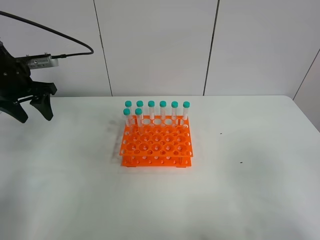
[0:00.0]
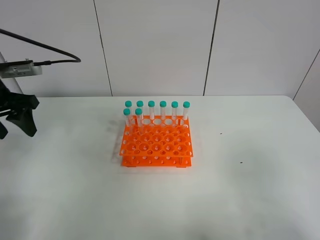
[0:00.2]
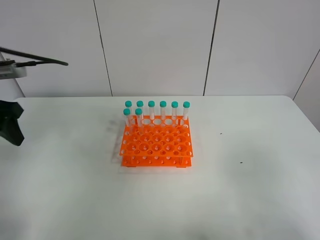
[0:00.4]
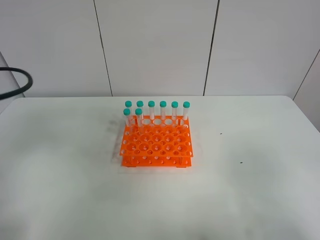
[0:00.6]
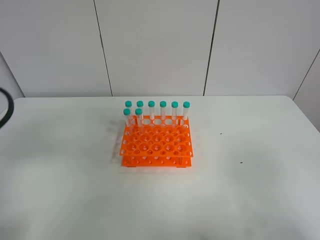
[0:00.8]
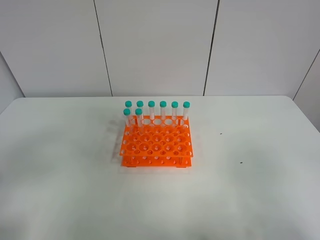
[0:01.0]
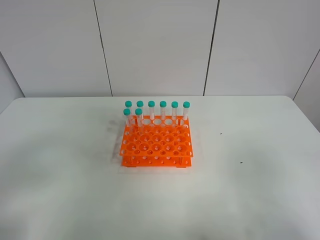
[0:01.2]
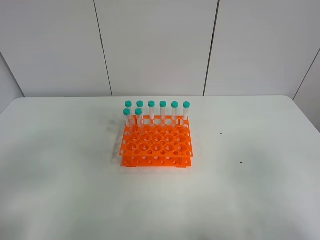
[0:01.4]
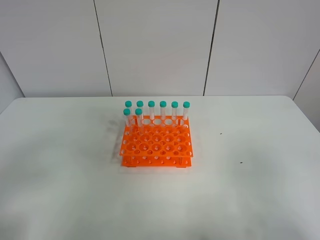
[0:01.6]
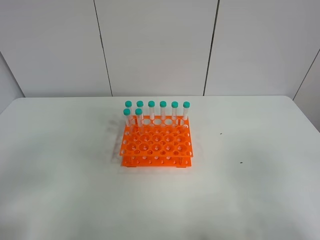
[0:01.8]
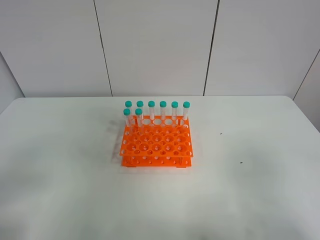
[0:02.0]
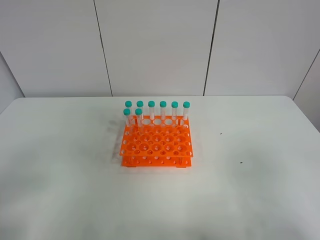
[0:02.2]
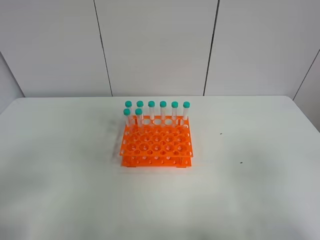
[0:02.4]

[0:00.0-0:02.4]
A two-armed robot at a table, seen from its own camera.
Task of the whole recording: Put the test tube on the table back onto the test tube rack.
0:00.0 to 0:01.2: The left gripper shifts about 30 cm backward.

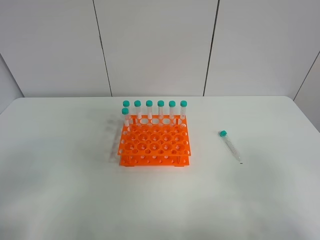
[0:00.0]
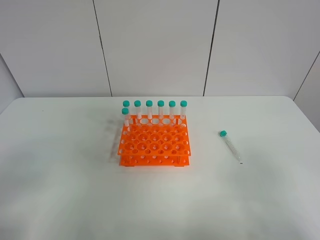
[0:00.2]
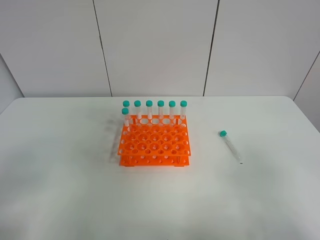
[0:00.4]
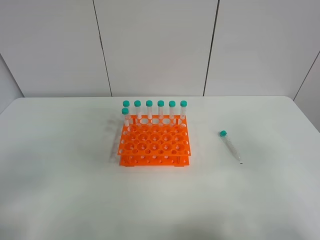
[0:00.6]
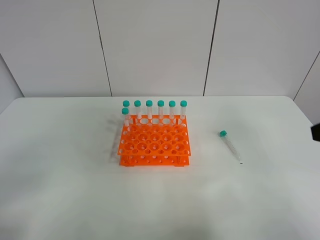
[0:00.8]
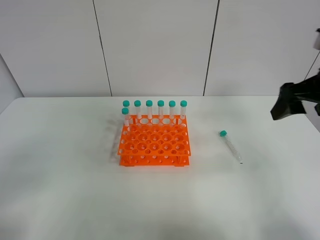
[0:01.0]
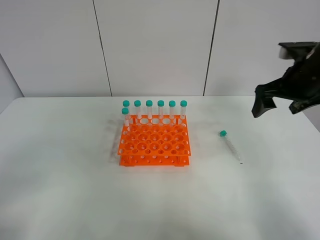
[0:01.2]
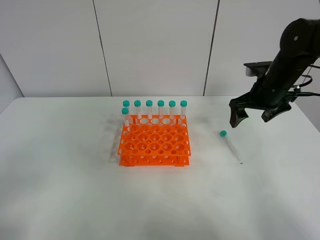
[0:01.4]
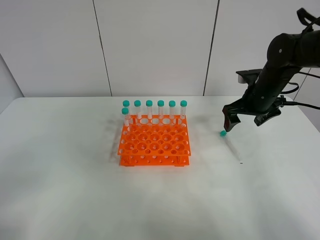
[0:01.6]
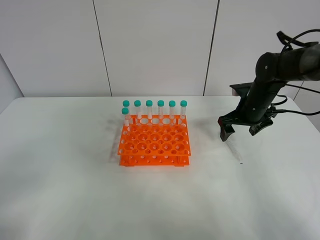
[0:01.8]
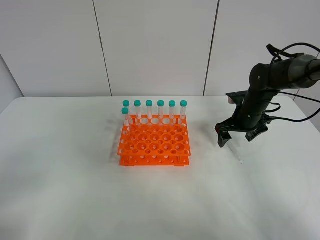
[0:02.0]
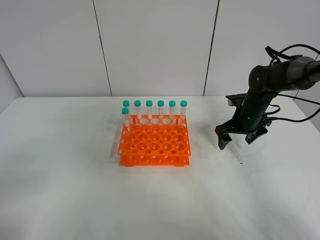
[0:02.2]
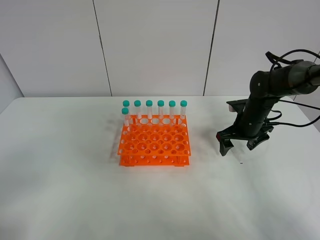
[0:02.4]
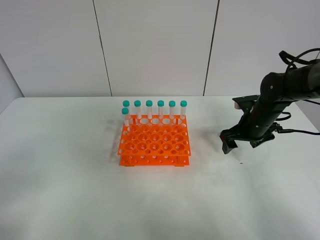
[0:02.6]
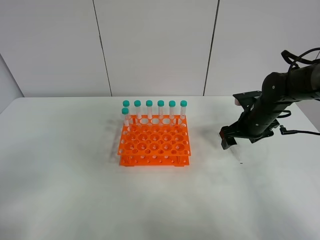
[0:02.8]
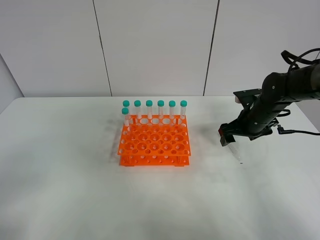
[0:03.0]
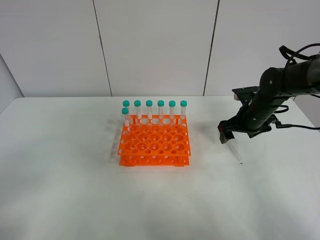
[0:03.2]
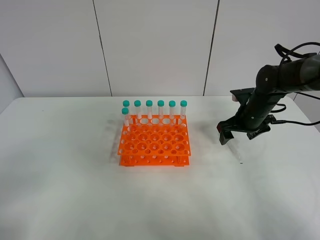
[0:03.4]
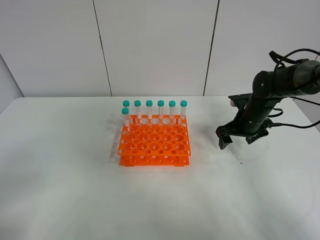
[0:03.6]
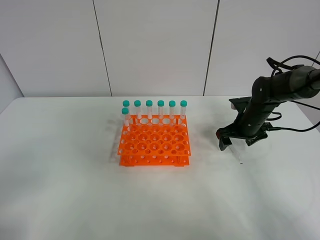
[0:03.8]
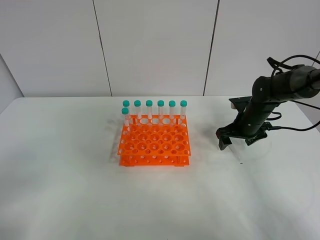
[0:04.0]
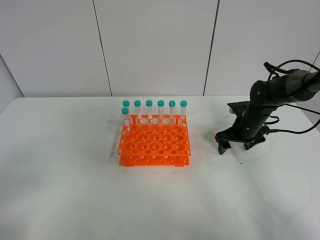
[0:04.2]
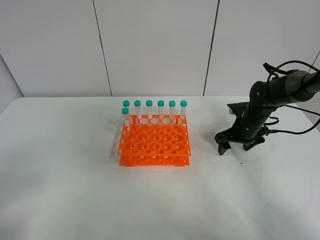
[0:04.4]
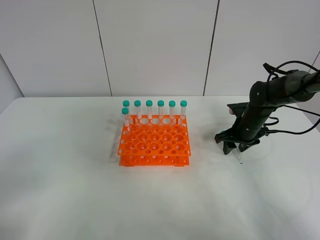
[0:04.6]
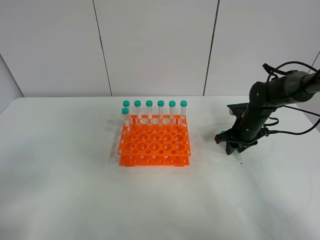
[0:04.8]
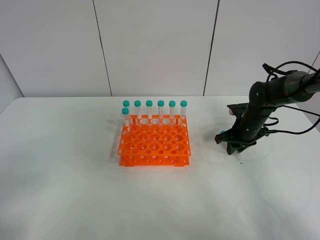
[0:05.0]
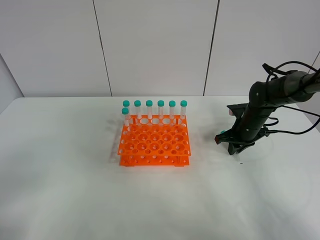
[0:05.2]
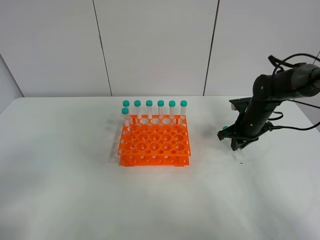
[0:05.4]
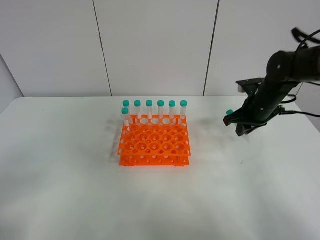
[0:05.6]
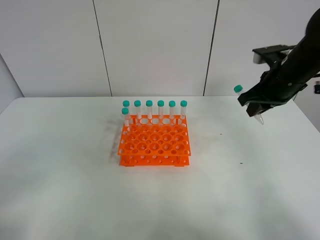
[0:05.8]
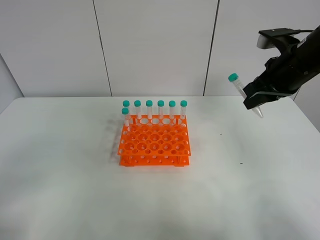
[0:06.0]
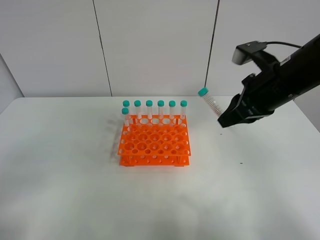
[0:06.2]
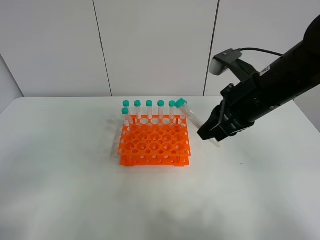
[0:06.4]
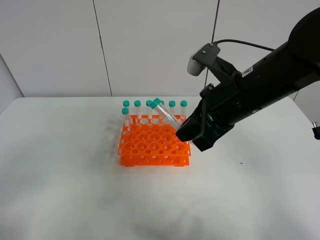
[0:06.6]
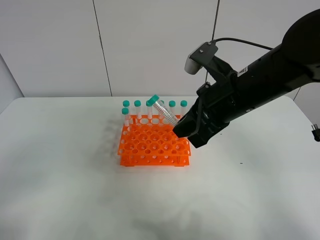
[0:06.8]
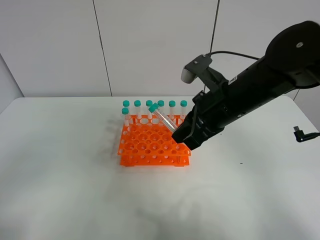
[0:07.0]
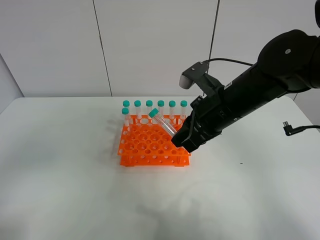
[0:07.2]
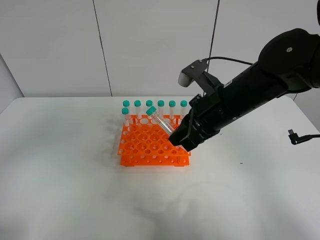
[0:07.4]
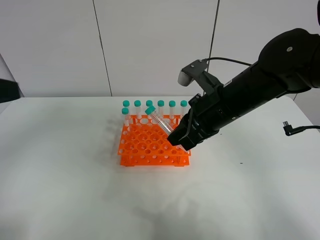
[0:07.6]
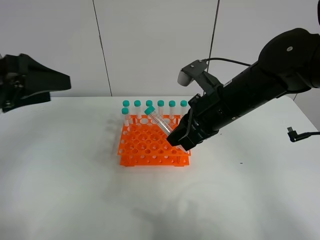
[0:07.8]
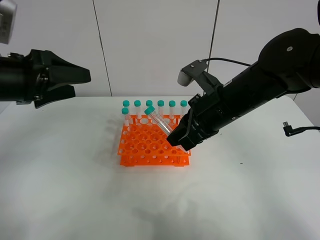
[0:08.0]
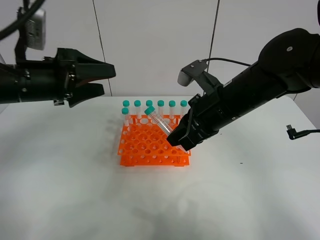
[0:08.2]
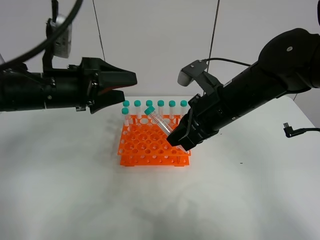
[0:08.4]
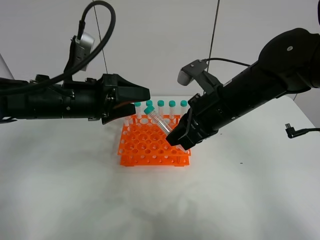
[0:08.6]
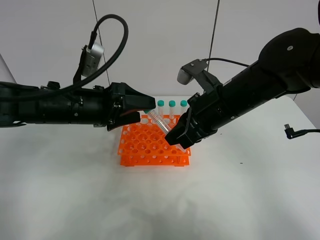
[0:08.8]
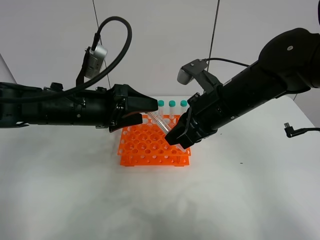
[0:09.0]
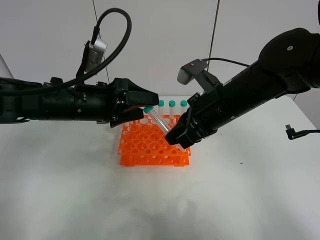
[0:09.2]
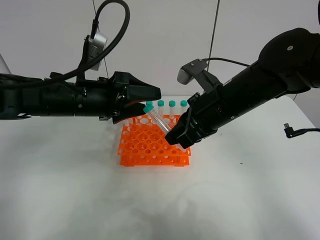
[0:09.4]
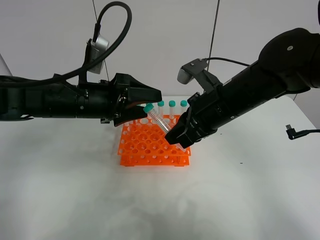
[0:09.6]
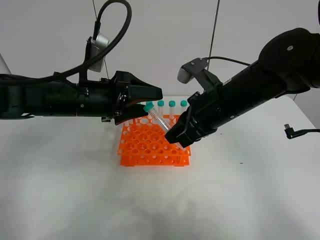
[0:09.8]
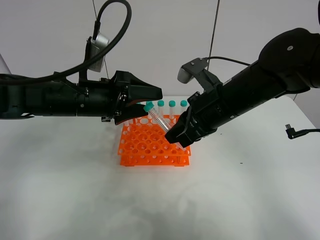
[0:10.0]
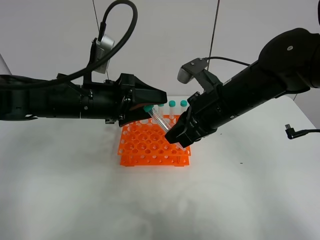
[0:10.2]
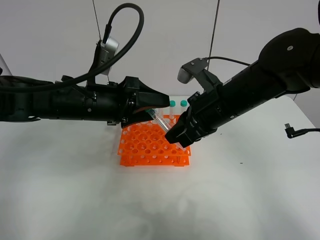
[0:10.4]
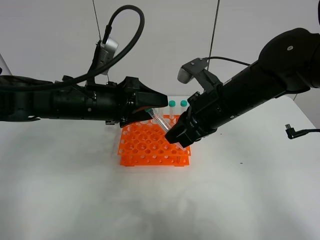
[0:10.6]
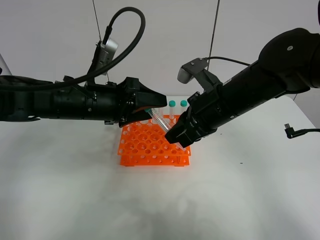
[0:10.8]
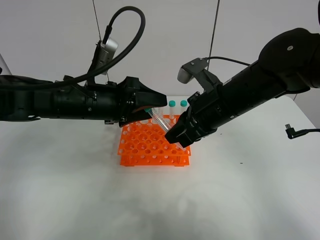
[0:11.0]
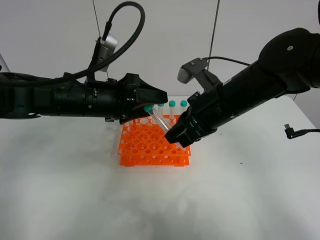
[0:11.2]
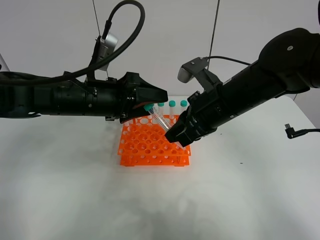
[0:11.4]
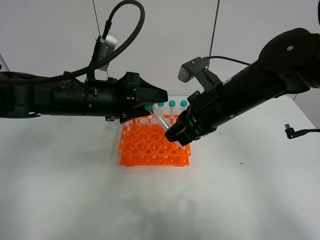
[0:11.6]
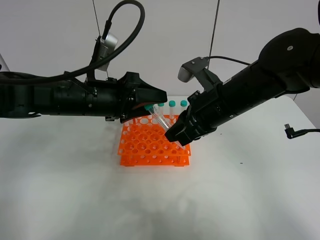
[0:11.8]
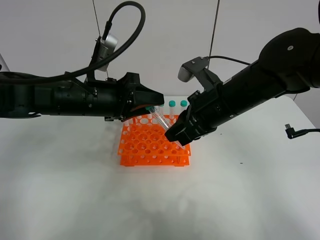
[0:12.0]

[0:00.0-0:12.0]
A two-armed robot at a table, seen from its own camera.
Task of the whole recording: Put the test tube on the table back onto the test tube rack.
Step, 0:00.0 to 0:05.8: Pick up the test tube with the right gripper.
0:00.0 to 0:01.6: The right gripper heads forward, covering approximately 40 cm.
0:01.6 to 0:03.0: The right gripper heads downward, covering roughly 5 cm.
0:03.0 to 0:04.4: The right gripper shifts by roughly 5 cm.
0:04.4 to 0:06.0: The right gripper goes about 25 cm upward and backward, and closes.
0:06.0 to 0:07.6: The right gripper travels to the left and downward by some 15 cm, while the left gripper travels forward and upward by some 15 cm.
0:07.6 to 0:09.0: The left gripper shifts approximately 25 cm forward, downward and to the right.
0:09.0 to 0:10.4: The grippers make only small movements.
0:10.4 to 0:12.0: The left gripper closes up.

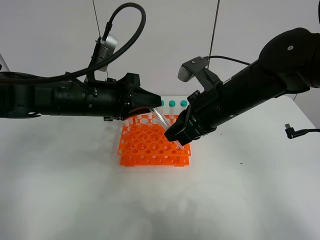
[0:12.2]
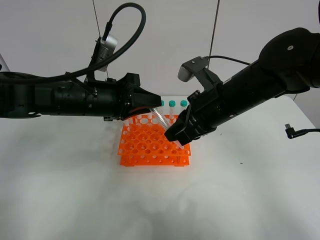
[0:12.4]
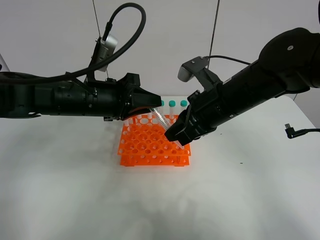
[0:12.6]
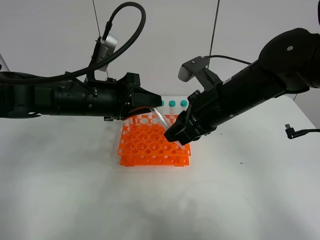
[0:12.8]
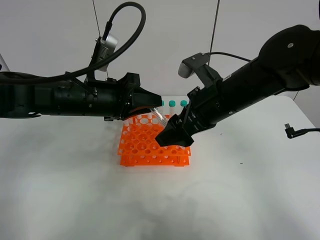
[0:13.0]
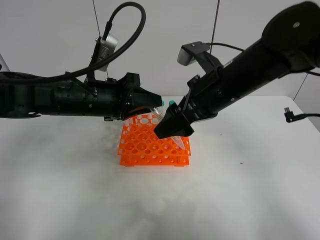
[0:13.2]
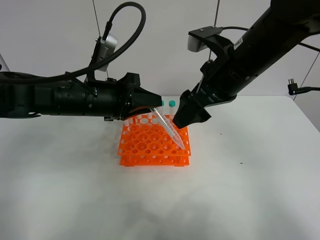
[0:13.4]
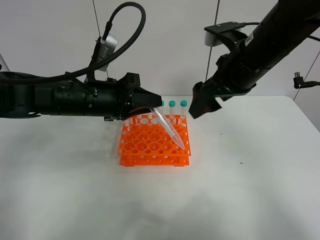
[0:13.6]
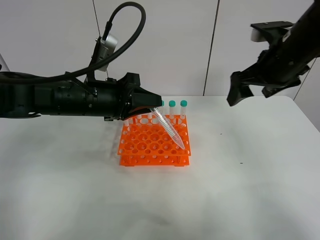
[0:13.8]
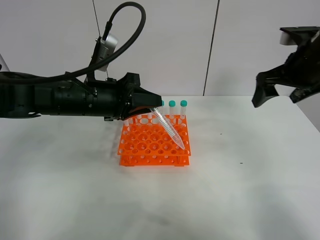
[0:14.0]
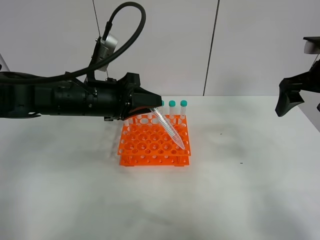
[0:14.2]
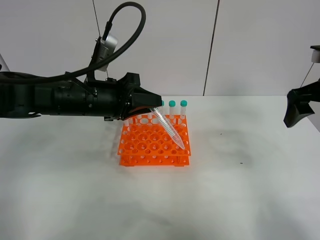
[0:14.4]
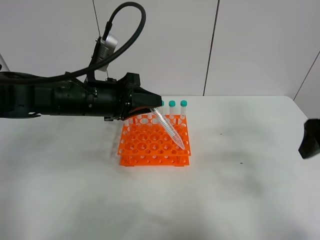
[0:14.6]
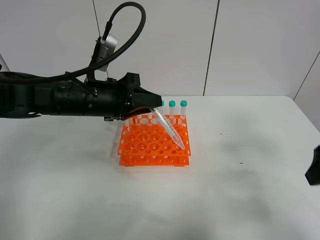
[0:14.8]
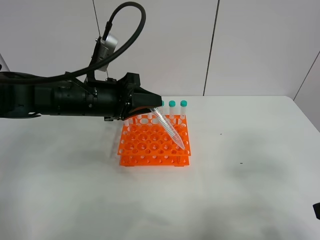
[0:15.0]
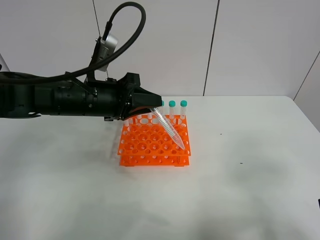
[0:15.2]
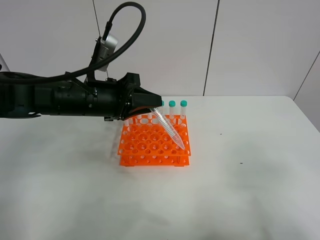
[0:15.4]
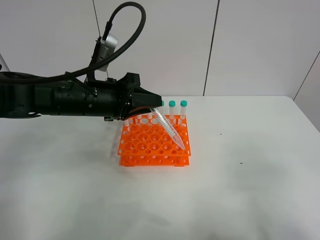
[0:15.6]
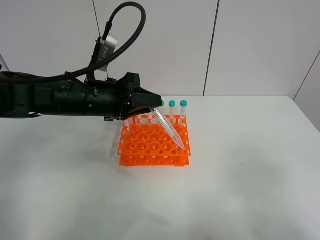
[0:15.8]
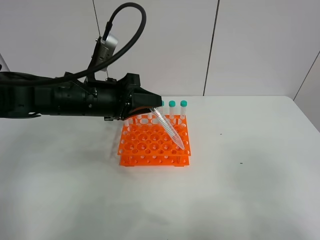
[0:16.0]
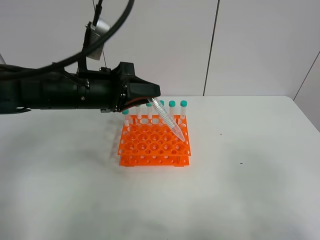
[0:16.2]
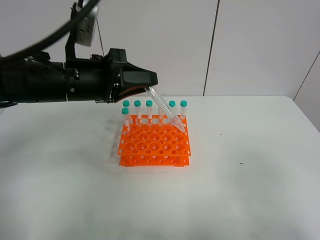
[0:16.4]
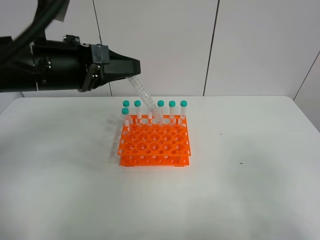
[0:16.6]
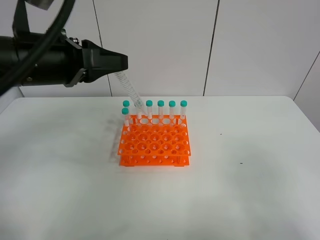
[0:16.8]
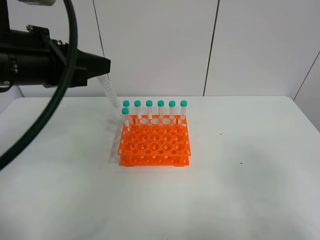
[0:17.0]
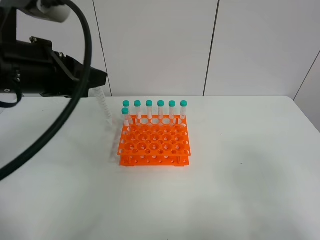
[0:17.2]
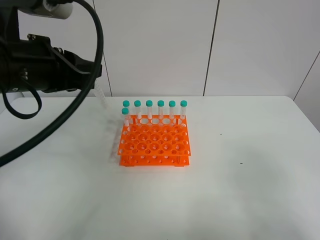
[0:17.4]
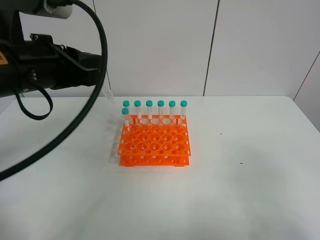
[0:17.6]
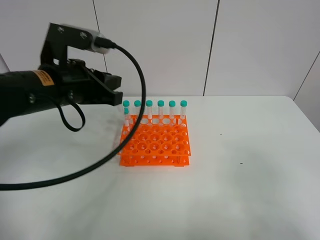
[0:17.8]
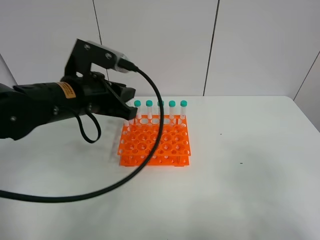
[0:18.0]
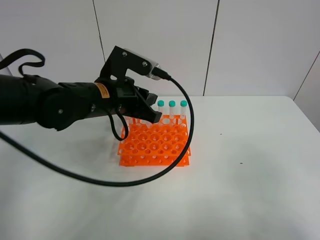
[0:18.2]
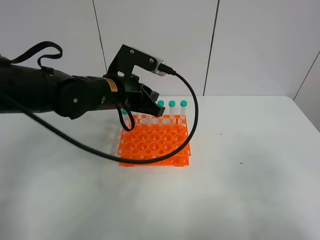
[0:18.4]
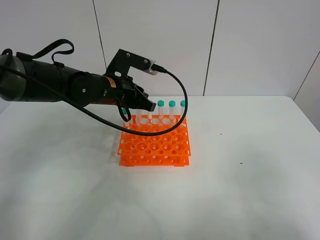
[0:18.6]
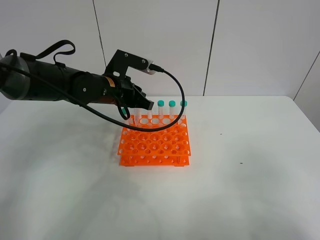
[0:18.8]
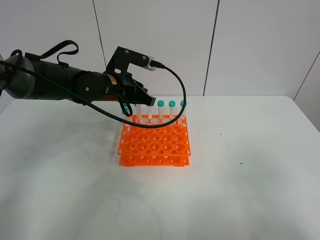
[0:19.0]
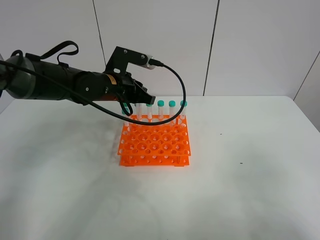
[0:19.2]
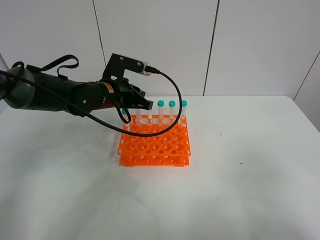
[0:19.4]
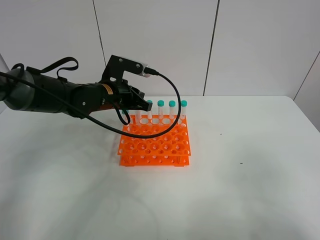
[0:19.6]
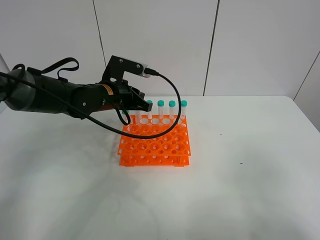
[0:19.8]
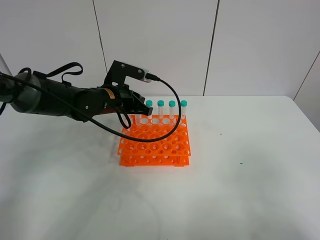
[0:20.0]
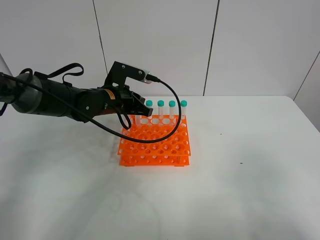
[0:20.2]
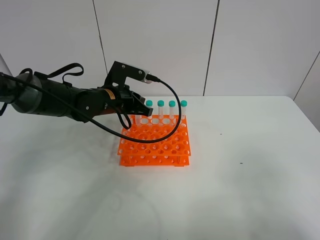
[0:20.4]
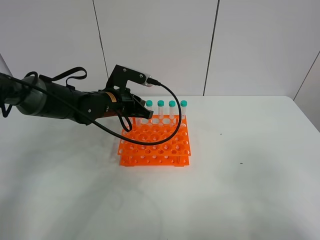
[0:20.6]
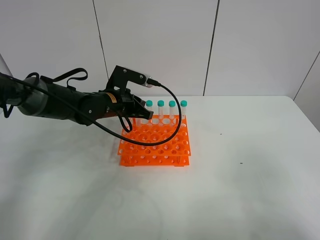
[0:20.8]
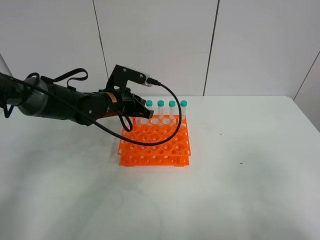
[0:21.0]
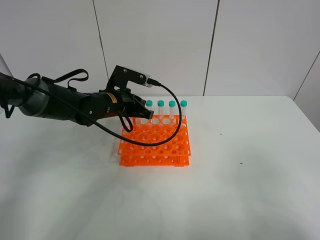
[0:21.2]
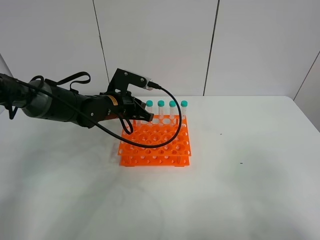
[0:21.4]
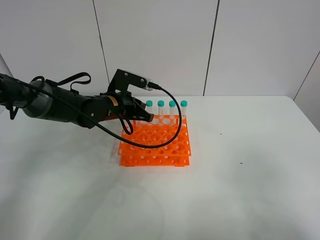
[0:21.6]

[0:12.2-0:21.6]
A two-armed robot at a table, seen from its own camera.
Task of the whole recording: Put the test tube on the table back onto the test tube rack.
0:12.2 to 0:13.8: The right gripper is displaced to the right, upward and forward by some 15 cm, and opens up.
0:13.8 to 0:15.4: The right gripper moves backward, some 30 cm.
0:15.4 to 0:17.0: The left gripper is displaced upward, backward and to the left by some 15 cm.
0:17.0 to 0:18.4: The left gripper heads downward, forward and to the right, covering about 20 cm.
0:18.4 to 0:20.0: The left gripper goes roughly 5 cm downward.
0:20.0 to 0:21.6: The grippers make only small movements.
